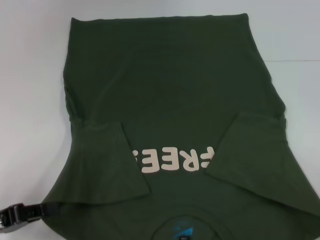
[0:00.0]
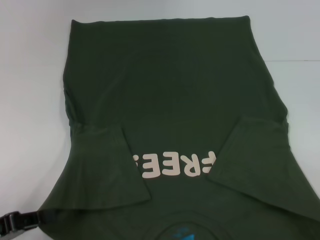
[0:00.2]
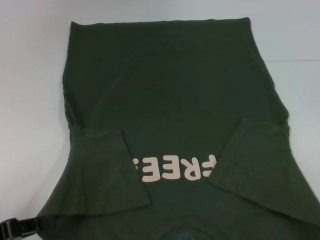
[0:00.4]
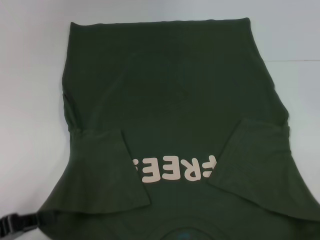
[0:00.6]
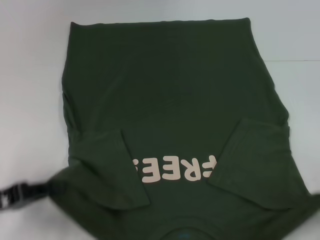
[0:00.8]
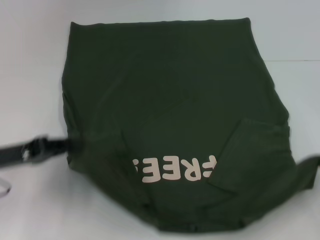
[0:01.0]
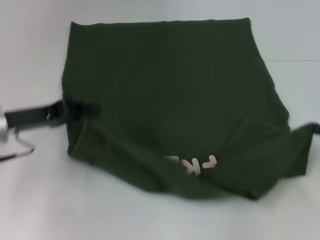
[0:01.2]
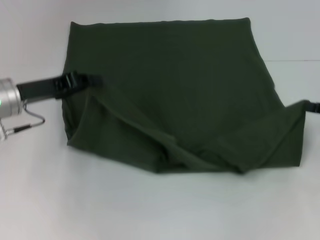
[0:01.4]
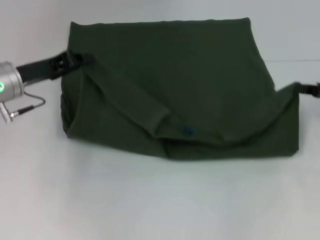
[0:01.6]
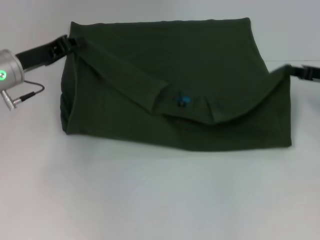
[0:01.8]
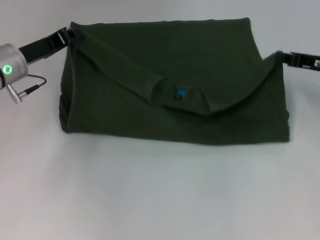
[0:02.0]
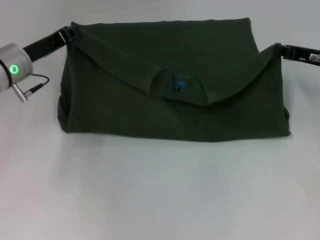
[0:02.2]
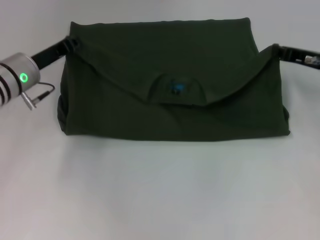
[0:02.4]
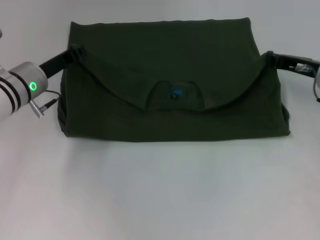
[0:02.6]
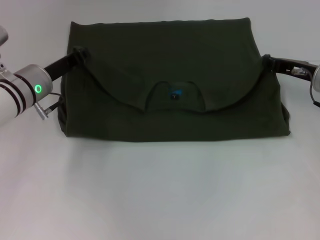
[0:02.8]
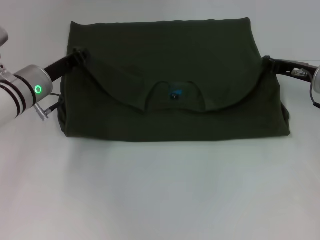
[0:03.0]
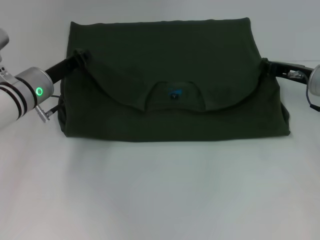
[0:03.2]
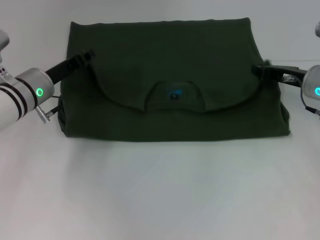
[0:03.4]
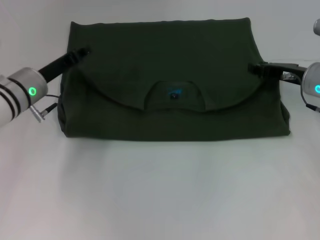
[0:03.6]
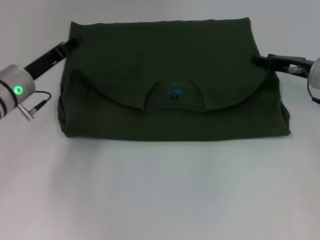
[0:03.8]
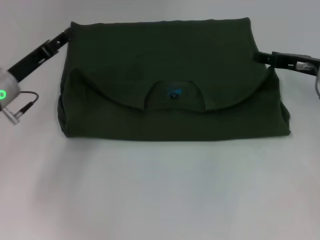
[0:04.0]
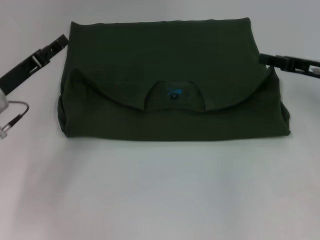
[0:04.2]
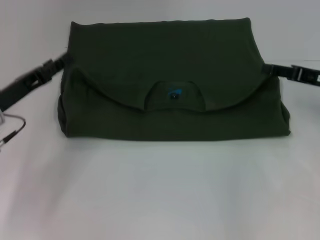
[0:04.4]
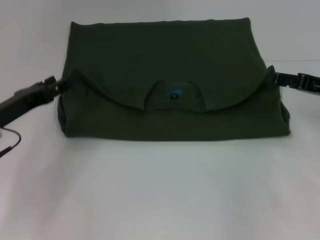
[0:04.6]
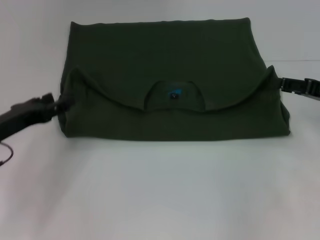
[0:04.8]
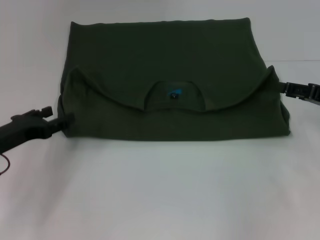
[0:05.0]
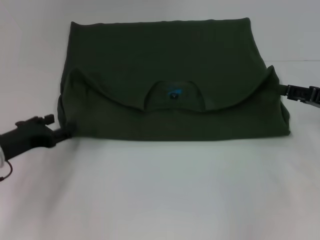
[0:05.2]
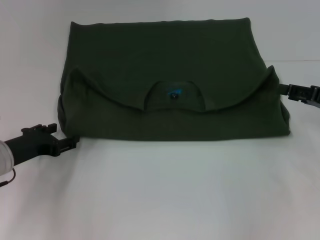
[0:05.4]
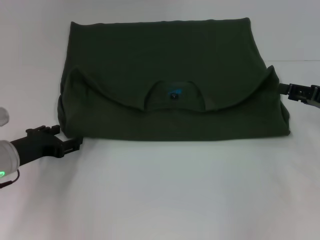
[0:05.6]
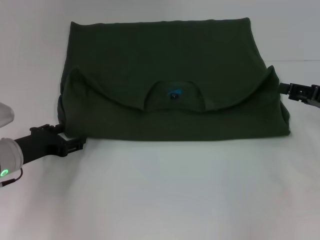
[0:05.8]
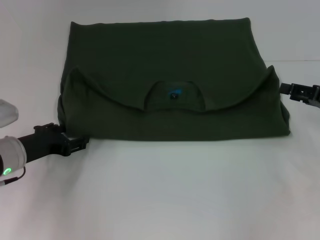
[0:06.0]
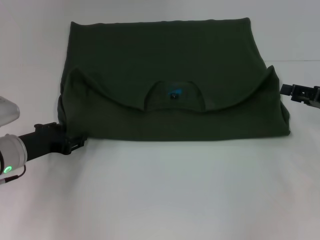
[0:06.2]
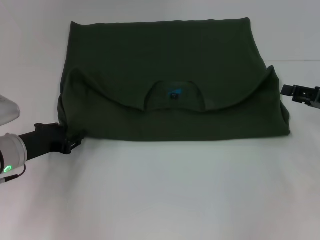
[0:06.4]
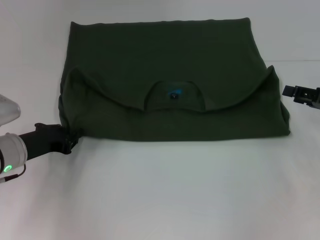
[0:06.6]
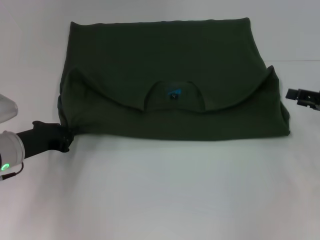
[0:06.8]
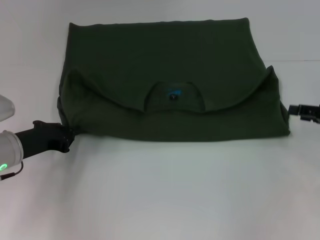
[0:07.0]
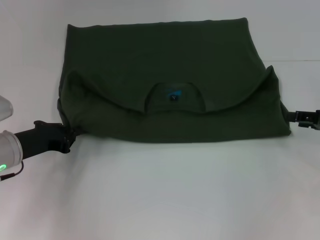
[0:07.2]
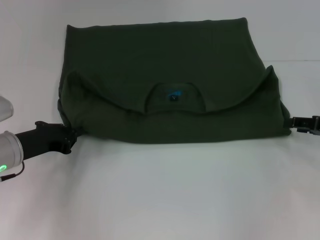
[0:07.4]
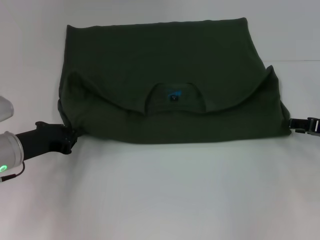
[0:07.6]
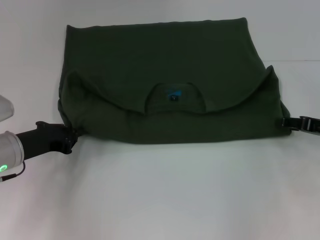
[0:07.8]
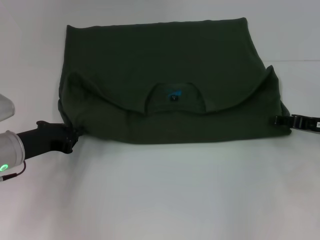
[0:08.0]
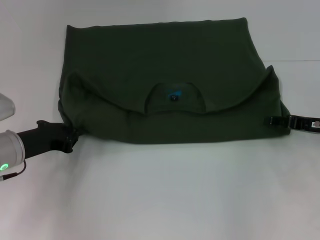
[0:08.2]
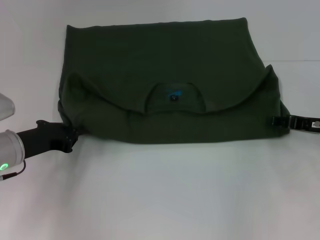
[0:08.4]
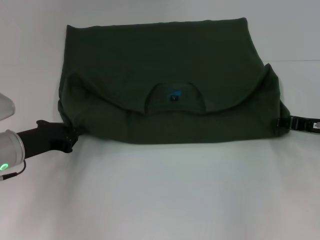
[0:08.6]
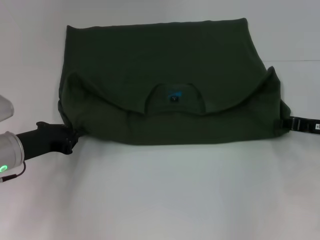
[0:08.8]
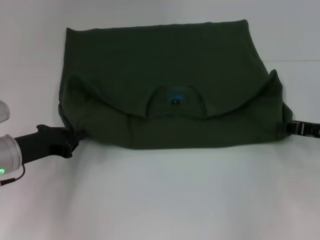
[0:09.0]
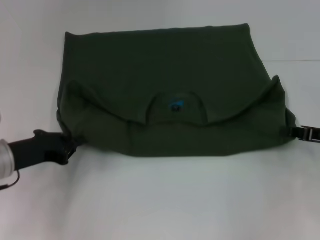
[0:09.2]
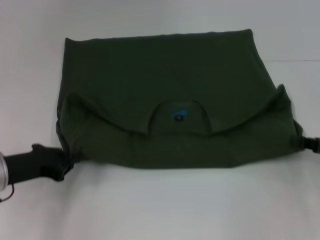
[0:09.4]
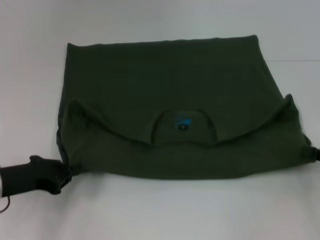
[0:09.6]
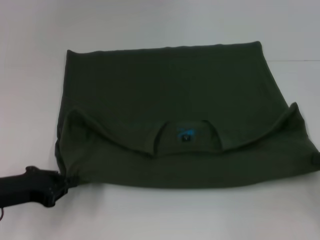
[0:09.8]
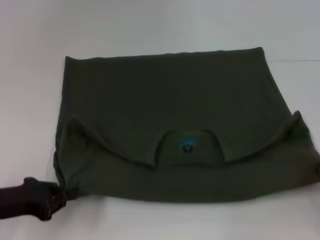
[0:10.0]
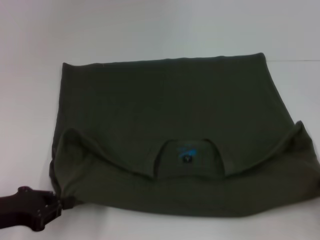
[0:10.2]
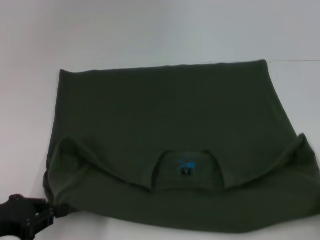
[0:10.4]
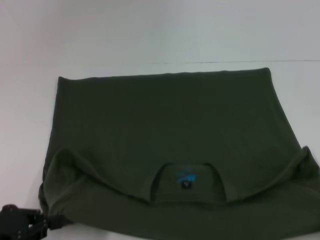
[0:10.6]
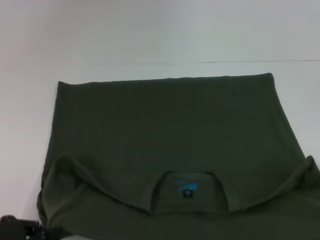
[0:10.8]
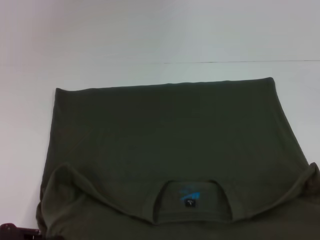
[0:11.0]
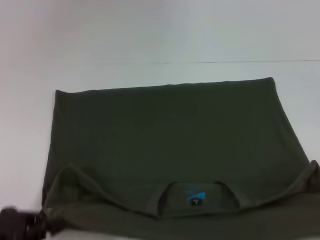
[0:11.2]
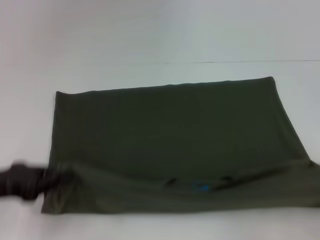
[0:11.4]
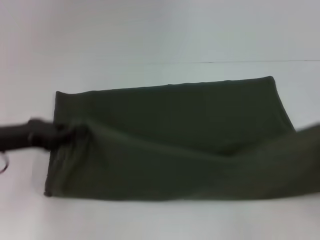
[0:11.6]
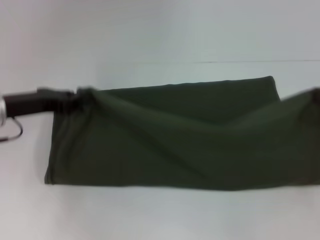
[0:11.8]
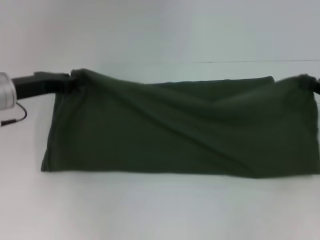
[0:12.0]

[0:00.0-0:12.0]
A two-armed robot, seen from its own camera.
Step, 0:00.0 to 0:03.4: Fold the clothes with your left hand.
Step, 0:00.0 to 0:03.4: Fold the clothes with your right hand.
Step, 0:03.6 to 0:10.8: Pull the clothes with your left hand.
Step, 0:03.6 to 0:10.8: Pull the clothes with your right hand.
0:00.0 to 0:01.6: The two grippers go about 20 cm forward.
0:01.6 to 0:03.0: The right gripper is displaced to the left and forward by approximately 10 cm; the left gripper shifts by some 5 cm.
0:03.0 to 0:04.4: The right gripper ends up about 5 cm from where it was, and opens; the left gripper goes about 10 cm backward and to the left, and opens up.
0:04.4 to 0:06.0: The left gripper shifts by roughly 5 cm.
0:06.0 to 0:07.6: The left gripper closes its fingers.
0:07.6 to 0:09.0: The right gripper closes.
0:09.0 to 0:10.4: Both grippers move backward, roughly 15 cm.
0:10.4 to 0:12.0: Both grippers travel together forward, about 15 cm.

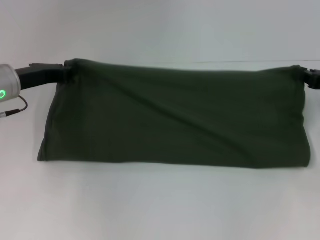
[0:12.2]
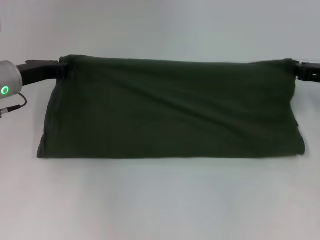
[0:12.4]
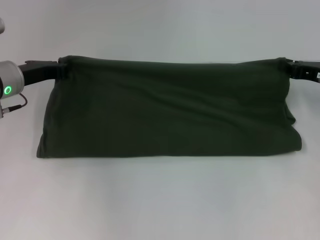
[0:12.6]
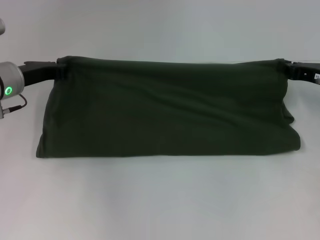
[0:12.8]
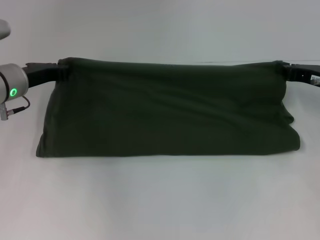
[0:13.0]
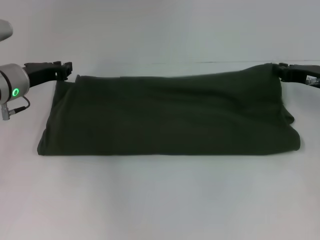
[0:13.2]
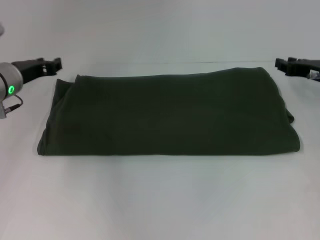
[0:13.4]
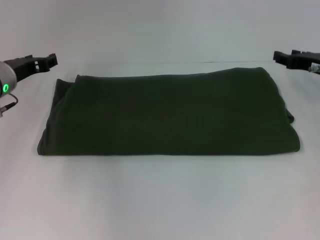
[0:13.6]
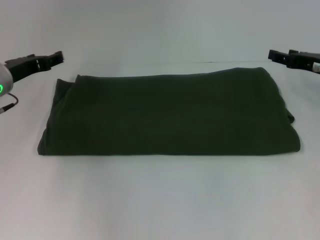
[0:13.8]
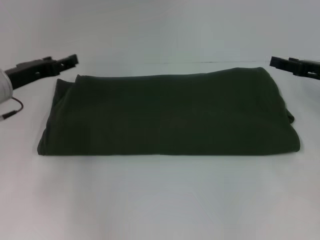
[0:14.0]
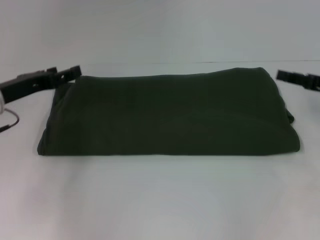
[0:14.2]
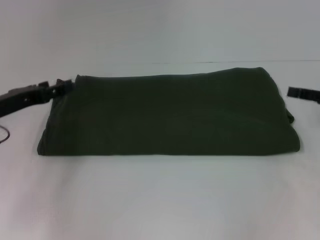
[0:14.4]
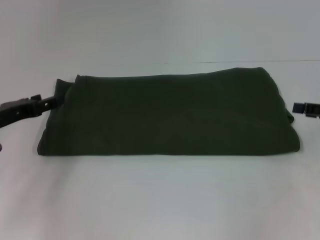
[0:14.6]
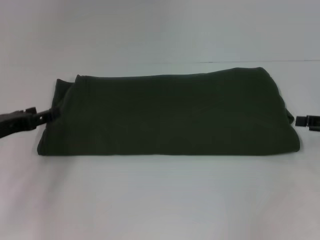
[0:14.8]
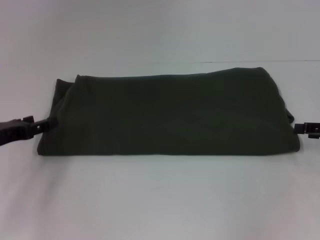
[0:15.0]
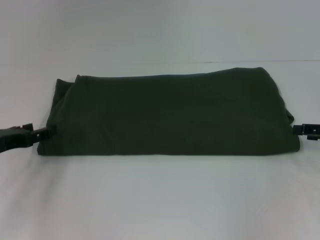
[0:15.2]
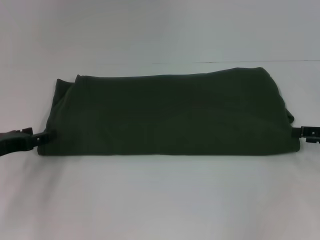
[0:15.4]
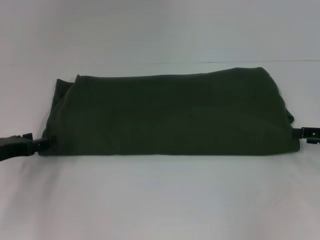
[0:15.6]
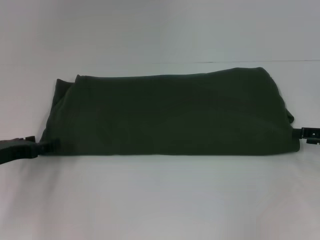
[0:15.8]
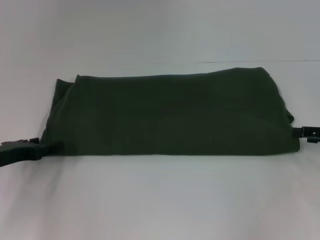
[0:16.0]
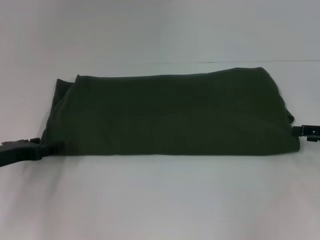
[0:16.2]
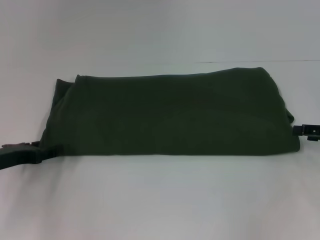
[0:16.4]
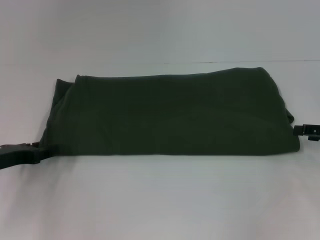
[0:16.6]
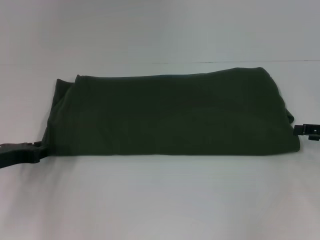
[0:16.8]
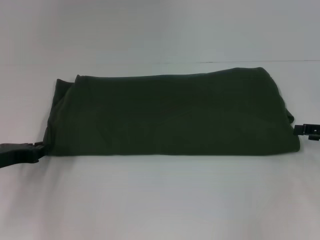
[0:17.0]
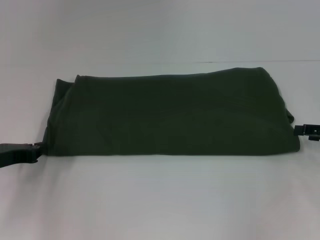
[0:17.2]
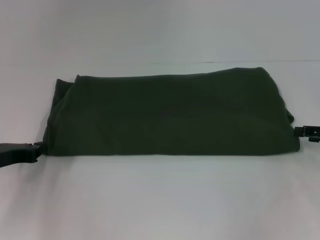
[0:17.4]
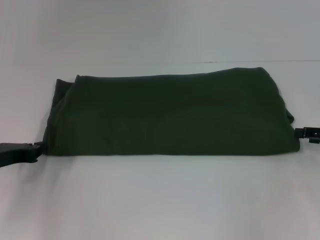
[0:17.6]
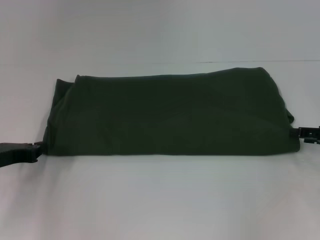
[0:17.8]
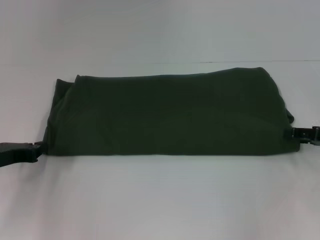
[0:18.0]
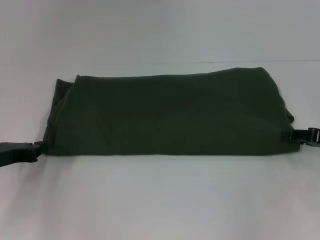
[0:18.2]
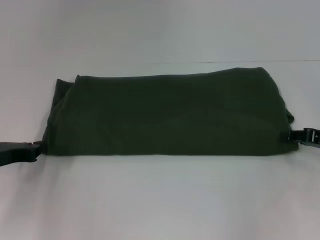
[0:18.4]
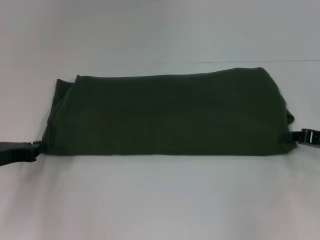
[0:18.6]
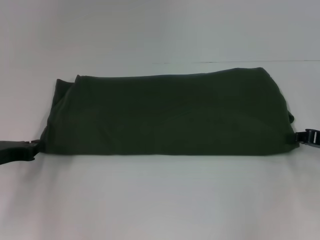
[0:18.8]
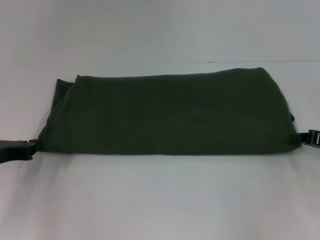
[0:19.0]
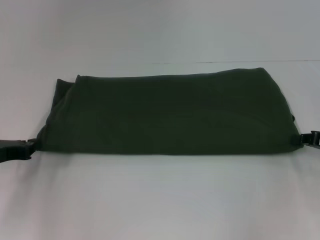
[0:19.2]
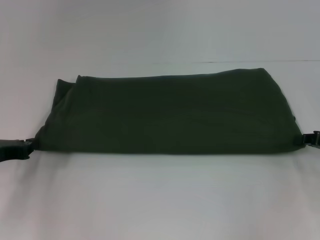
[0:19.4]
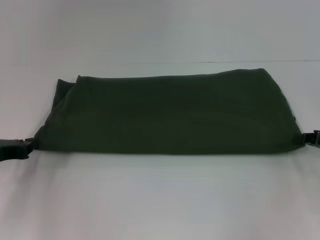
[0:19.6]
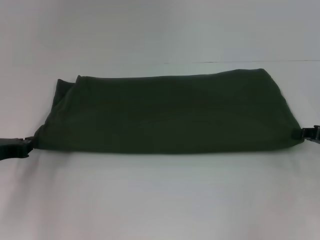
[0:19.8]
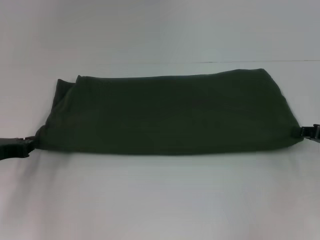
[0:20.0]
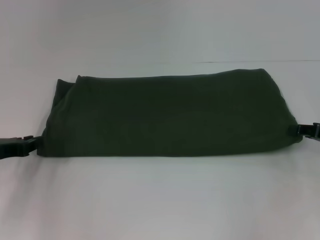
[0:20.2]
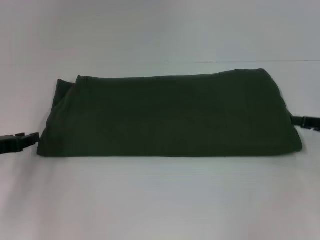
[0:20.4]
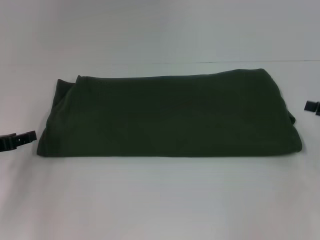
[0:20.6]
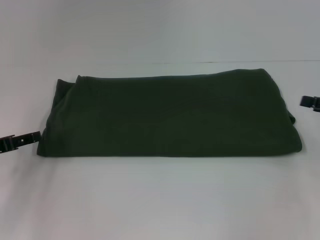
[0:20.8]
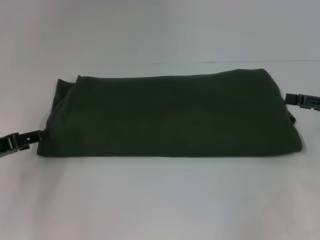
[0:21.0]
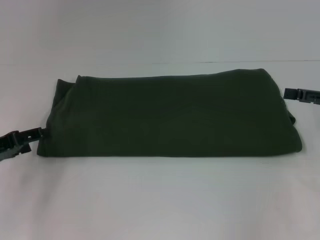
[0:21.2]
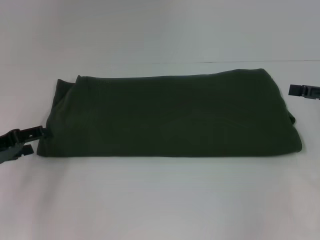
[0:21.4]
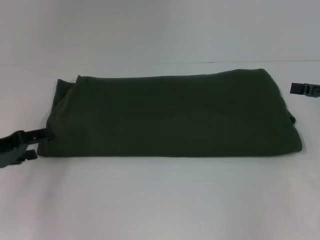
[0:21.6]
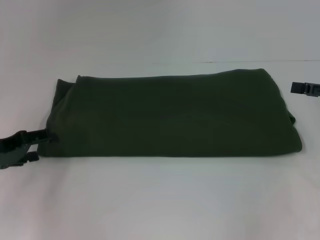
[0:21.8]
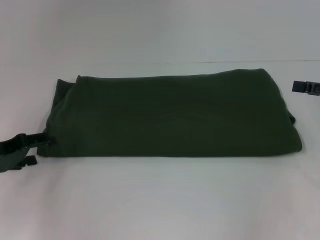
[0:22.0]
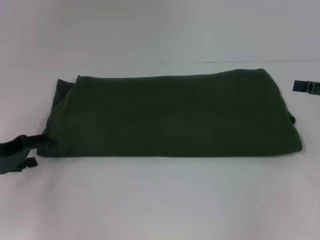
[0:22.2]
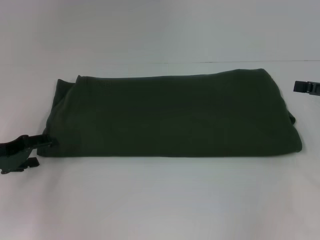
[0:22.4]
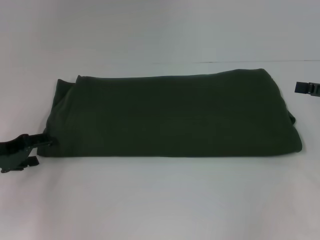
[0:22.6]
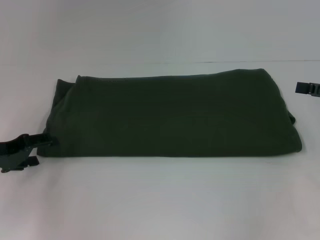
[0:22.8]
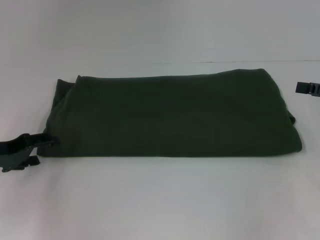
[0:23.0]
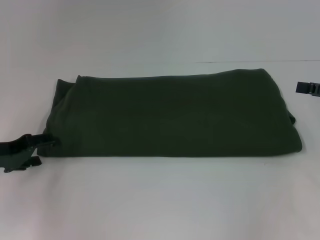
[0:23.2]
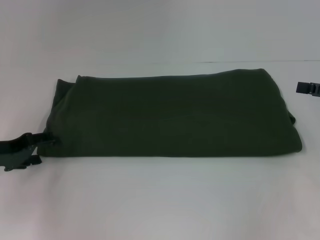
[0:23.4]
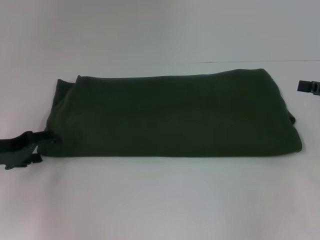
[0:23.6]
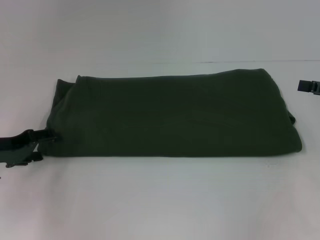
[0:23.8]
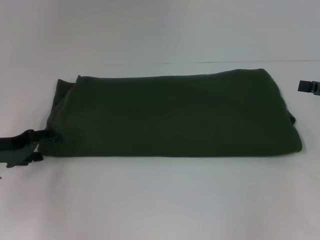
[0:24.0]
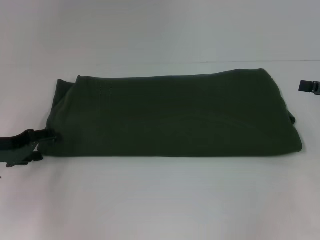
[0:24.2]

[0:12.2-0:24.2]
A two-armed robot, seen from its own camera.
0:12.2 to 0:13.8: The left gripper opens. The right gripper shifts by some 5 cm, and opens its fingers.
0:13.8 to 0:15.2: The right gripper is displaced backward and to the right by approximately 10 cm; the left gripper shifts roughly 10 cm backward.
0:15.2 to 0:16.6: There are only small adjustments of the grippers.
0:16.6 to 0:18.2: The left gripper closes up.
0:18.2 to 0:19.8: The right gripper closes.
0:19.8 to 0:21.2: The left gripper opens, while the right gripper moves upward, about 5 cm, and opens its fingers.
0:21.2 to 0:22.6: The grippers move only a little.
0:22.6 to 0:24.2: Neither gripper changes place.
